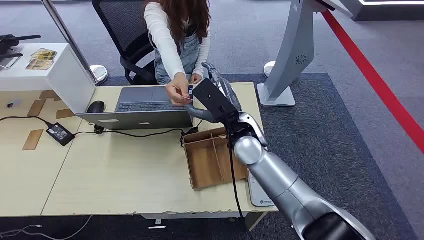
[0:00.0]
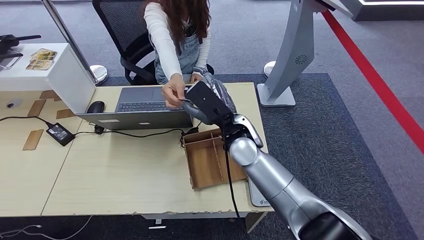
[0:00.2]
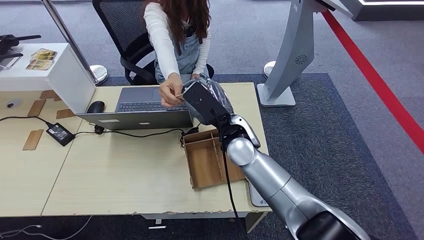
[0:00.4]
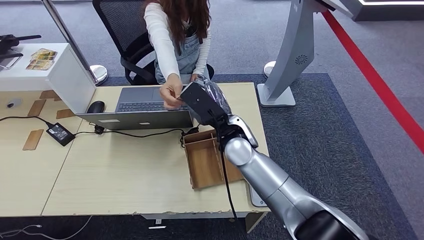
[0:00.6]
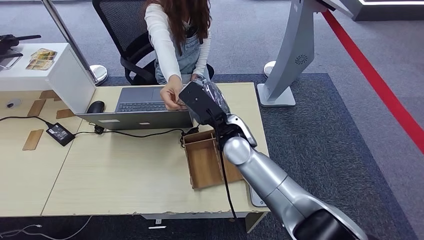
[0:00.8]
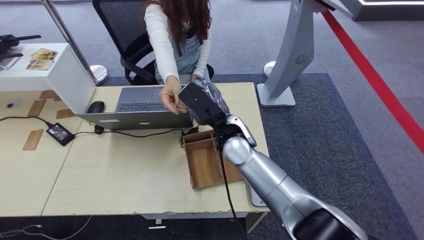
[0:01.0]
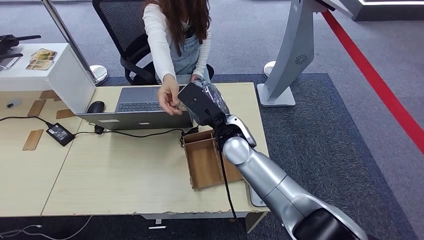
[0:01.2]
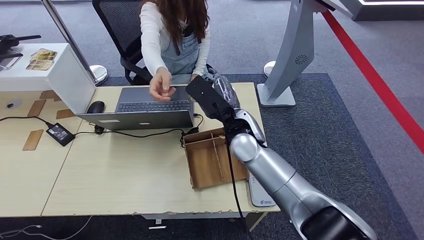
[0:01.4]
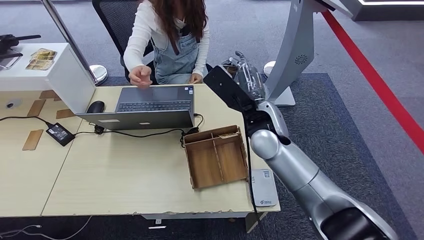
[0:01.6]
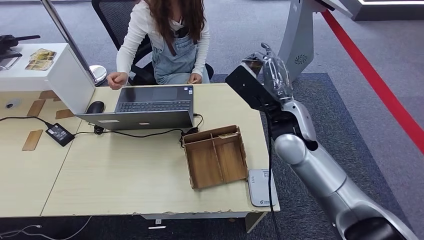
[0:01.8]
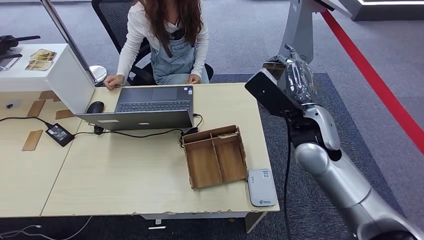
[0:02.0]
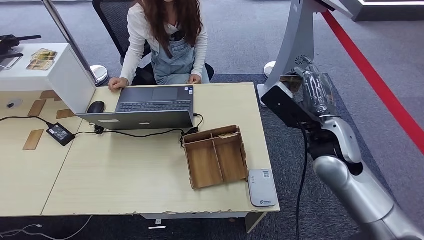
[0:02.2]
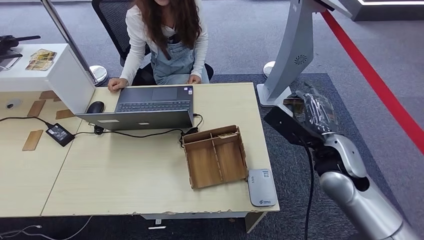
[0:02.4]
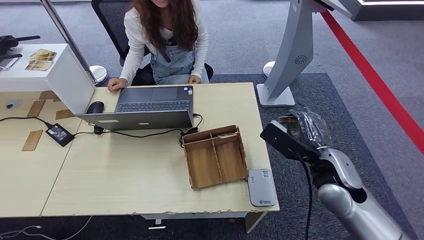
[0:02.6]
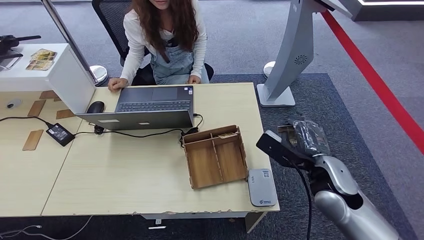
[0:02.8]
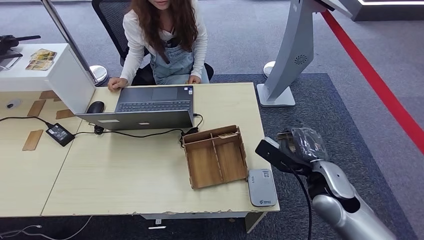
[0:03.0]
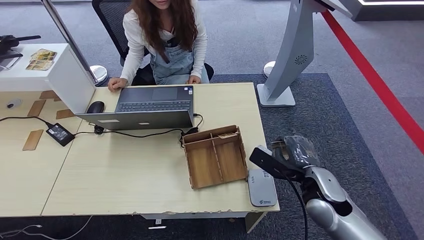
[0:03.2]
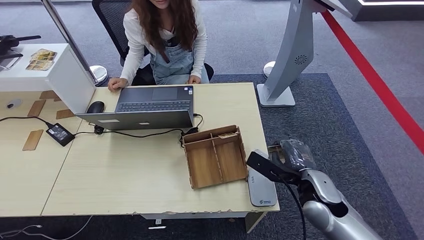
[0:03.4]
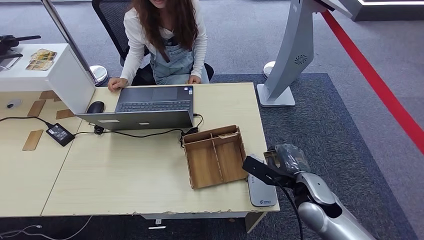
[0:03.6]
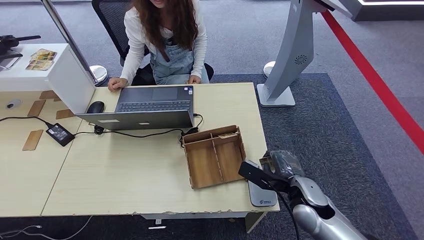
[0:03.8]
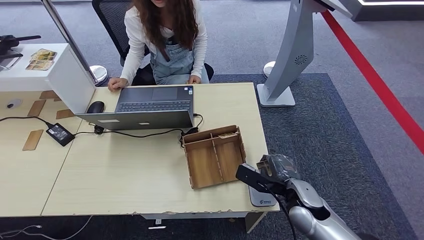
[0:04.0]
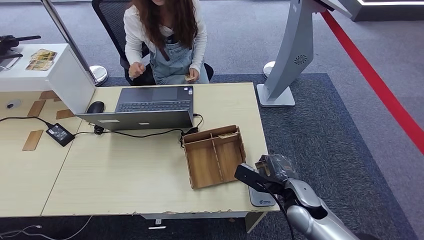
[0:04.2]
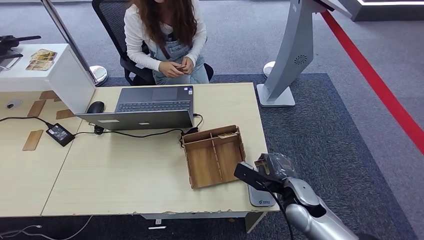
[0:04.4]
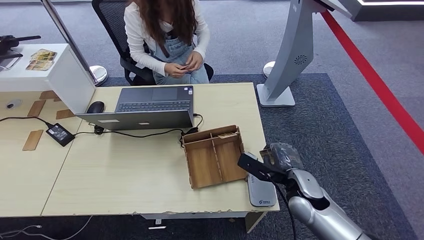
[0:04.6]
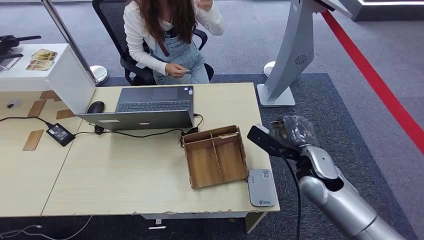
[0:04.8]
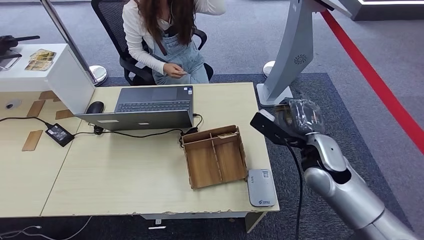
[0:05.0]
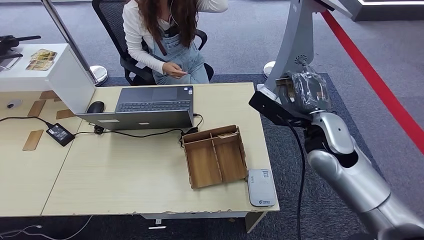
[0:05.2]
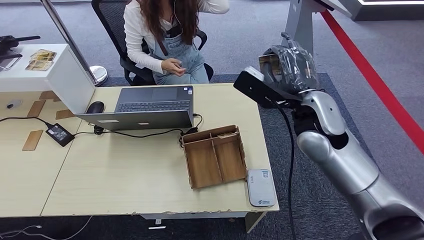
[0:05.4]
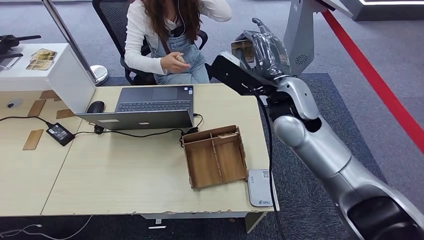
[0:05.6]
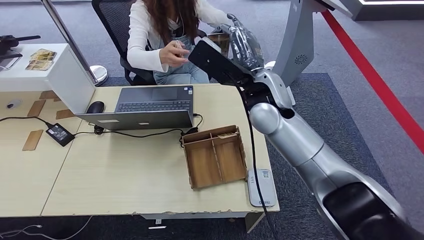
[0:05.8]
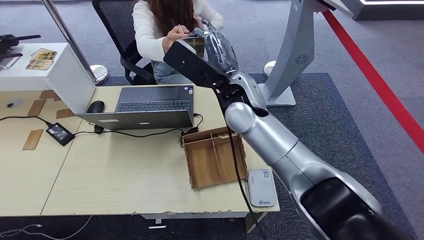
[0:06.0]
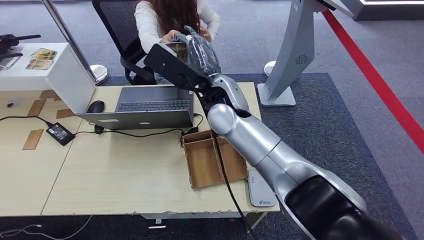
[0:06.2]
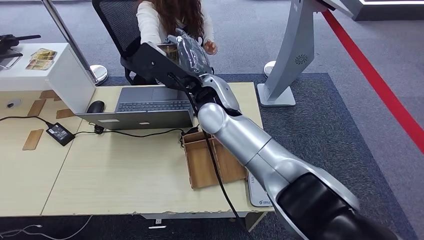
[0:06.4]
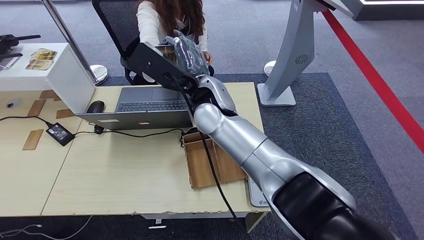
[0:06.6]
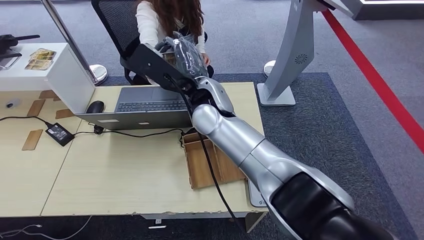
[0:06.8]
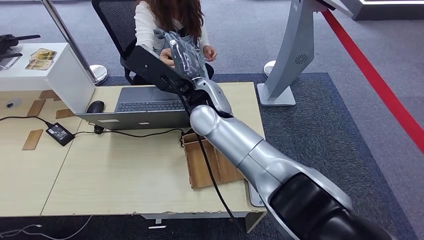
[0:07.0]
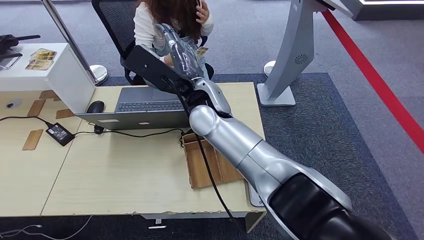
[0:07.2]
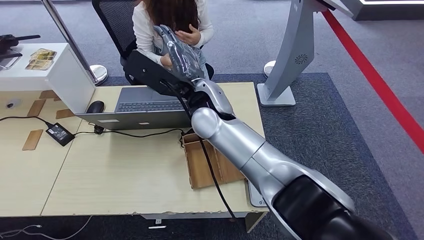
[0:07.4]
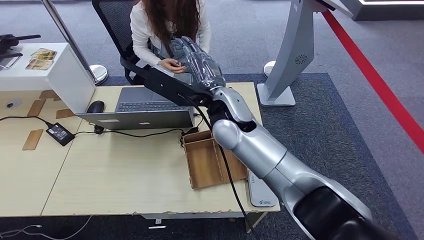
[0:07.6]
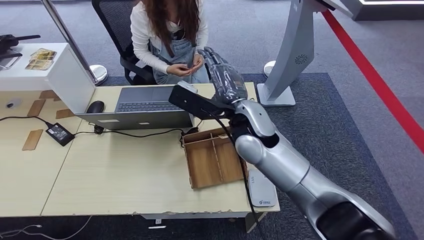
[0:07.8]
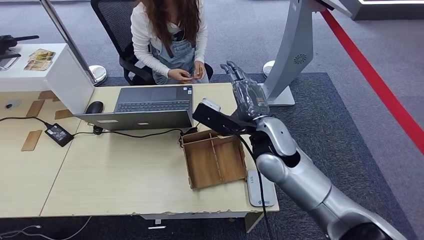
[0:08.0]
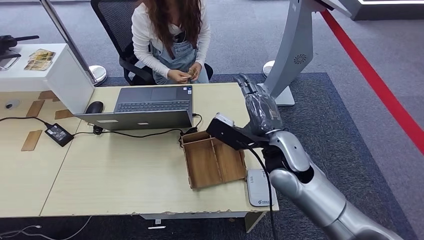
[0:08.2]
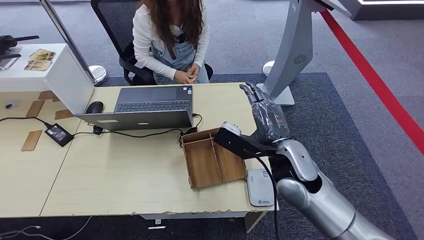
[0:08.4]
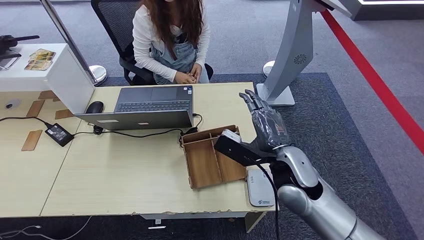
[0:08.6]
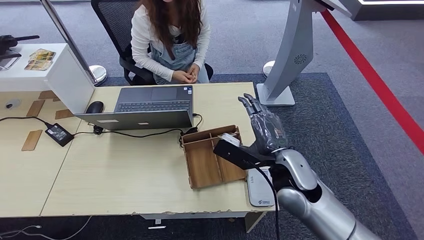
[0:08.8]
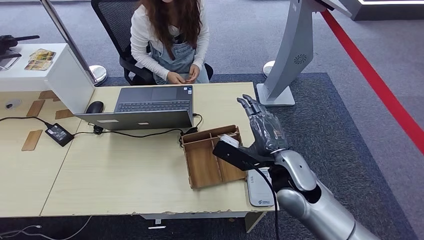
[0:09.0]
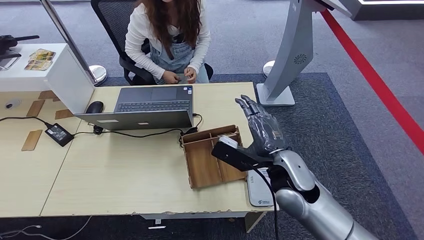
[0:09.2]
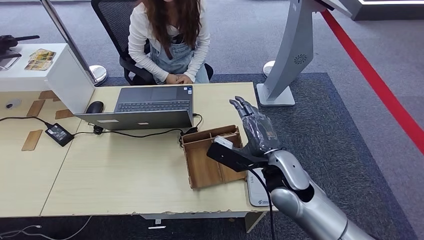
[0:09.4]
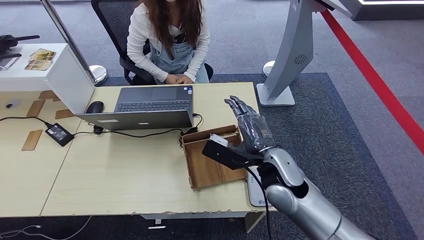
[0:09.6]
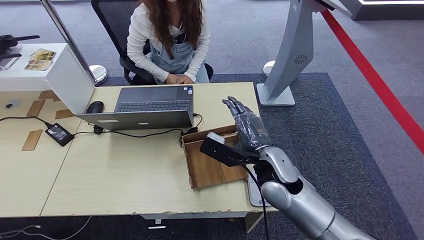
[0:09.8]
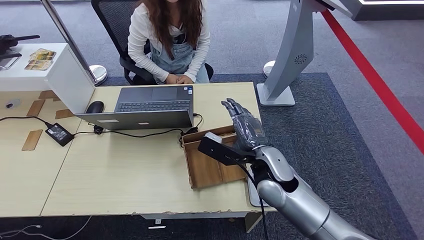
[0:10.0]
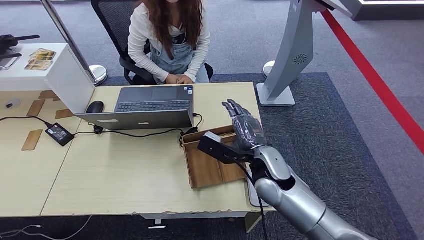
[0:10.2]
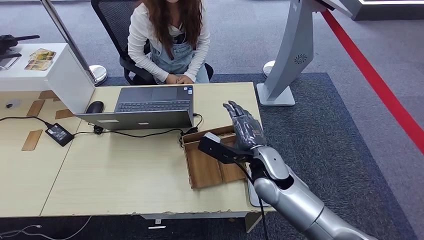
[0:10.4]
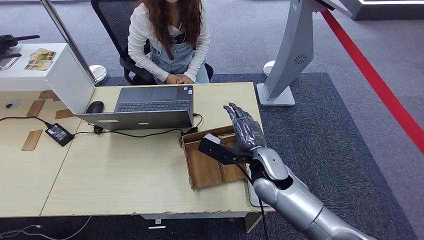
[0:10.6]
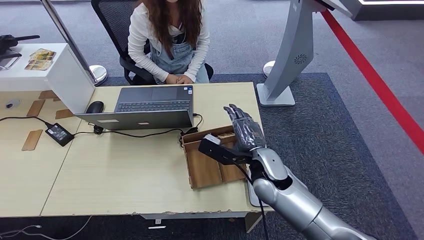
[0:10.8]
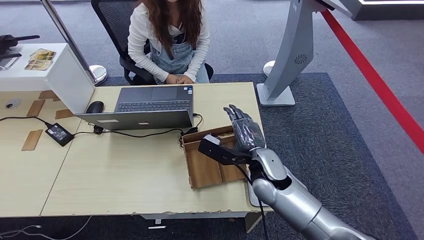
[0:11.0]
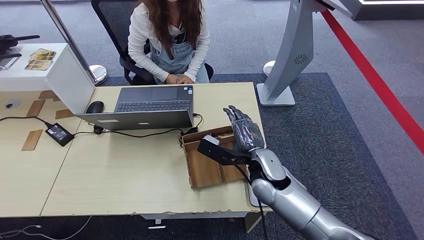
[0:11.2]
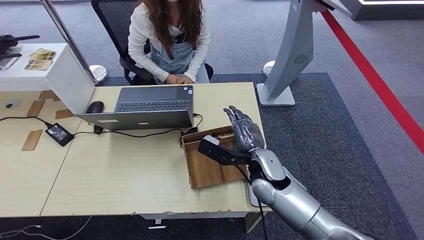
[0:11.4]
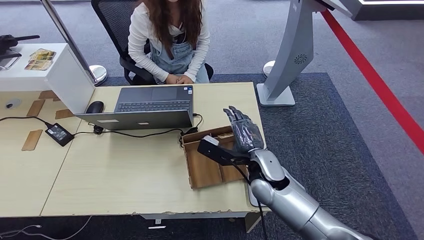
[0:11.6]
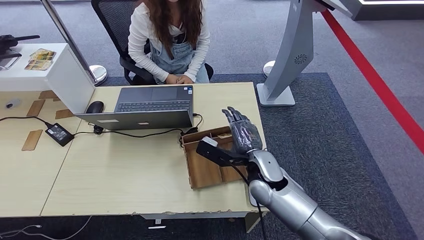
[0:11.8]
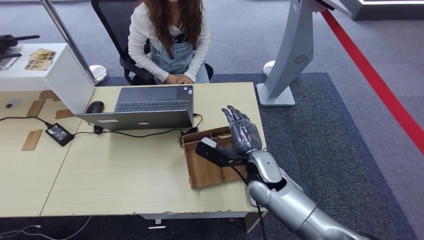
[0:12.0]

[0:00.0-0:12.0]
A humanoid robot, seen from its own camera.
Step, 0:00.0 to 0:01.2: Take the ID card from the person's hand.
Step, 0:01.4 to 0:05.8: Place the ID card on the card reader.
Step, 0:06.0 to 0:10.8: Hand the ID card to the person.
0:01.6 to 0:03.0: The right hand moves to the right, backward and downward, about 20 cm.
0:03.0 to 0:04.4: The right hand goes roughly 10 cm downward.
0:07.6 to 0:09.0: The right hand shifts some 20 cm to the right, downward and backward.
0:09.0 to 0:10.4: The right hand moves roughly 5 cm.
0:10.4 to 0:12.0: The hands make only small movements.

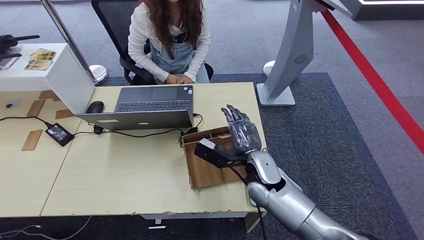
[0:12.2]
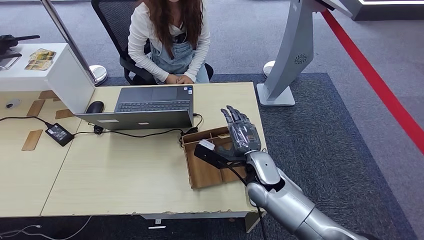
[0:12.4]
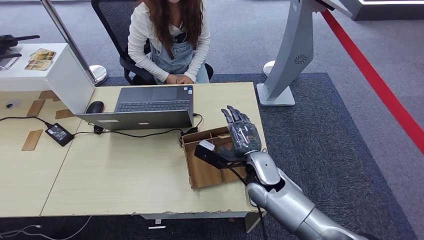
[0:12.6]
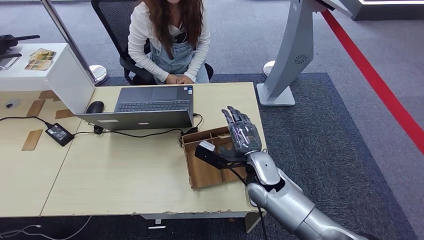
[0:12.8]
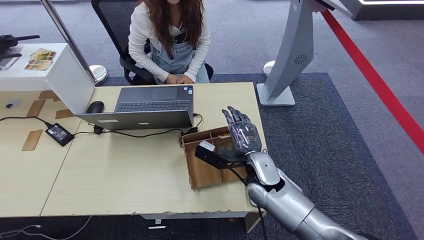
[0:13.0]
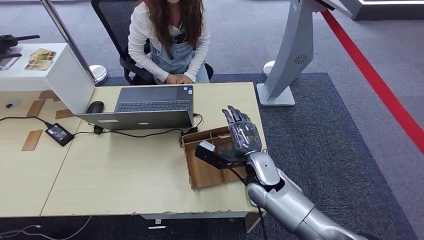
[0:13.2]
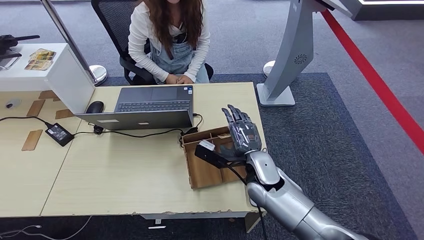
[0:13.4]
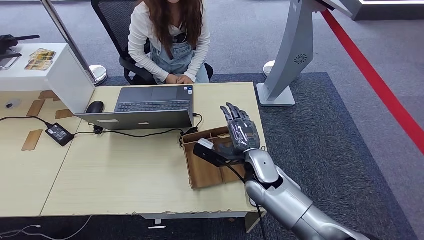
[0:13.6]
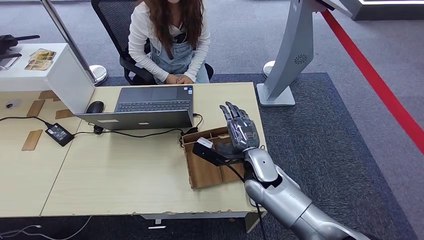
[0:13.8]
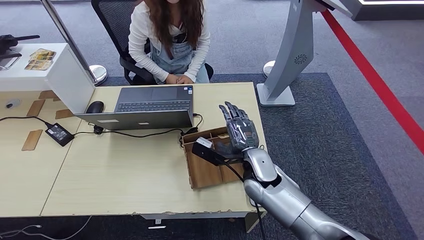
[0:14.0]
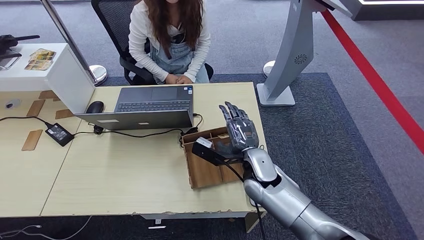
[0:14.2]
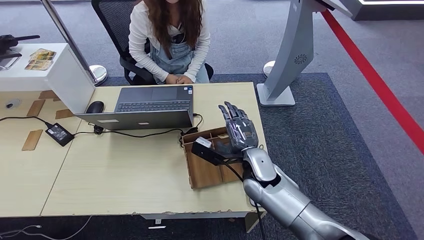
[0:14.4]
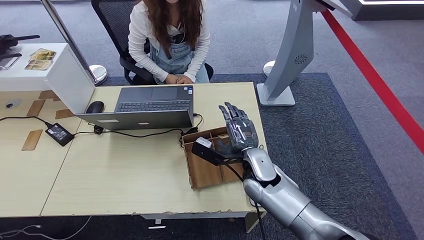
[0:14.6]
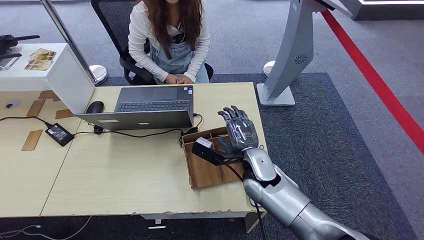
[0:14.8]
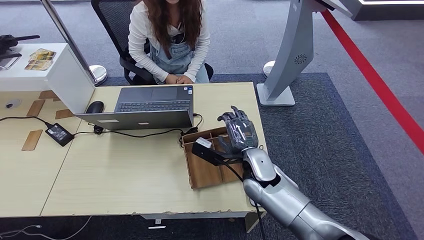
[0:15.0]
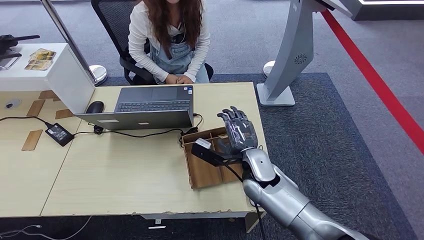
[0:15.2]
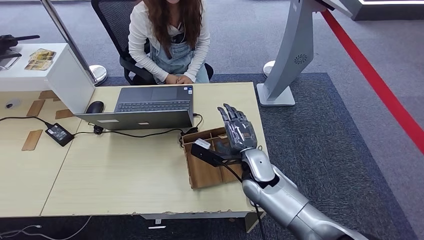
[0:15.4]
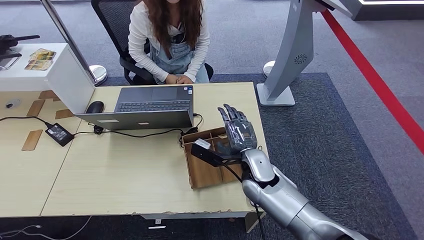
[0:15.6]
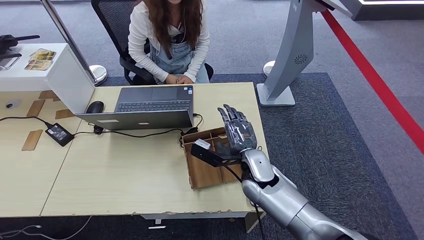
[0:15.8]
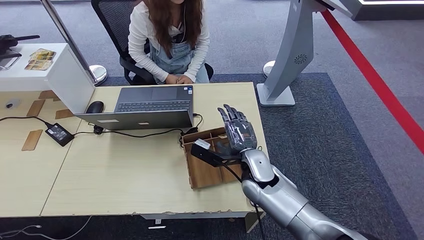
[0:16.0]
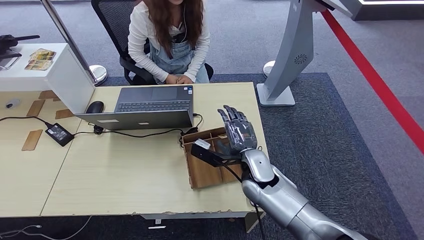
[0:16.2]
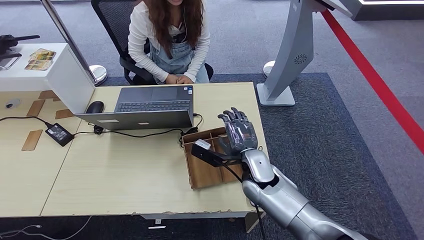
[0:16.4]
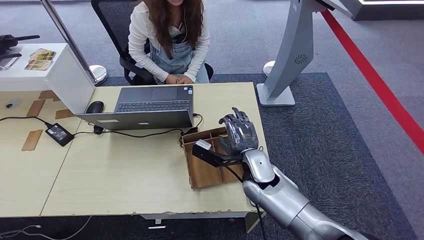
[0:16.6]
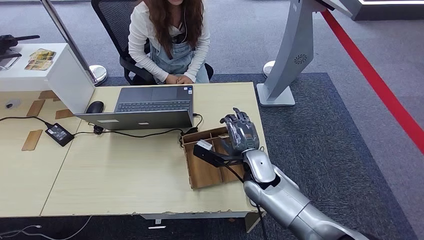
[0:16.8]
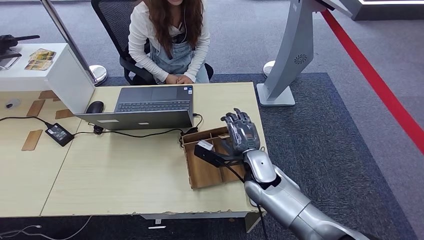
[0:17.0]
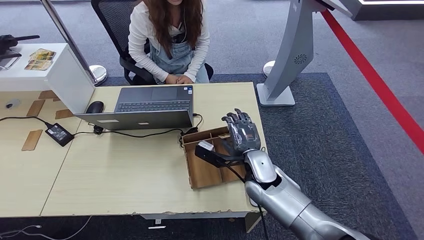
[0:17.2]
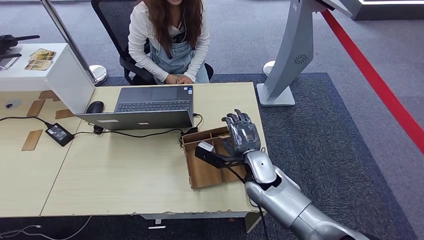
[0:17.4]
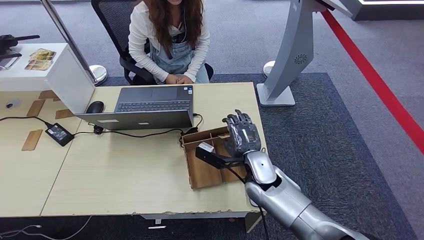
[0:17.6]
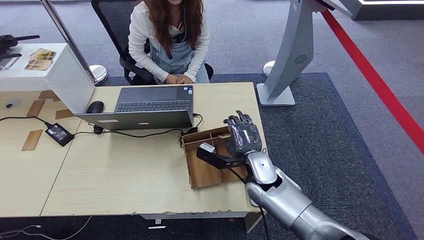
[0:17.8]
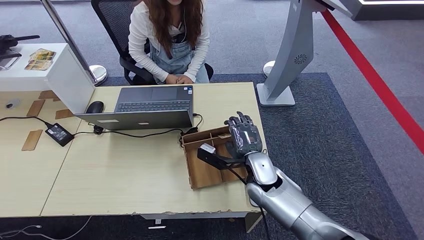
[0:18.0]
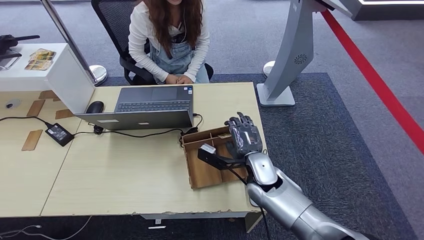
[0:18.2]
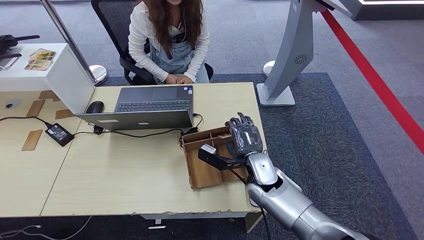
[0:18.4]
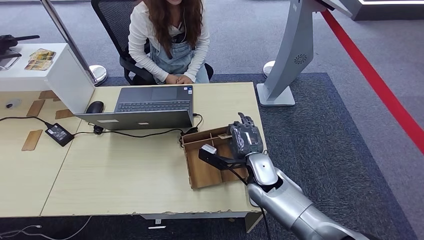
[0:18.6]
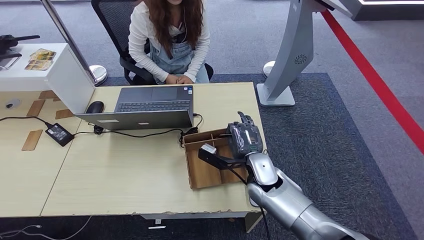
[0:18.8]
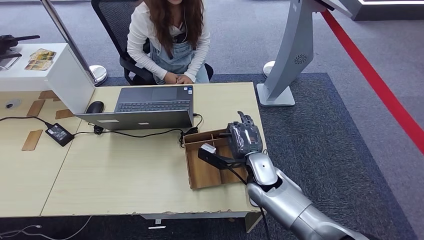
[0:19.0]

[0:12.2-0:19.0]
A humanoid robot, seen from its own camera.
0:12.2 to 0:15.0: Neither hand changes place.
0:15.0 to 0:16.2: Both hands stay put.
0:16.2 to 0:17.6: The hands move only a little.
0:17.6 to 0:19.0: Both hands stay put.
